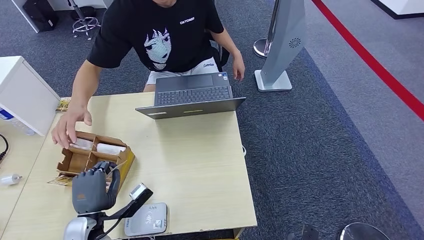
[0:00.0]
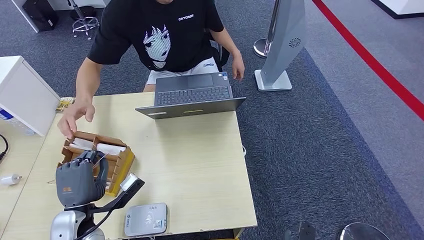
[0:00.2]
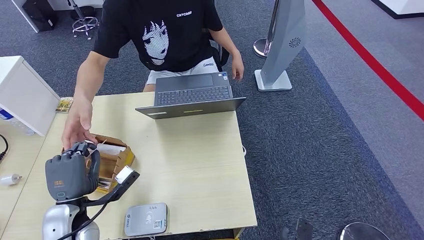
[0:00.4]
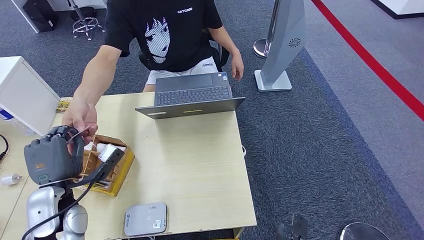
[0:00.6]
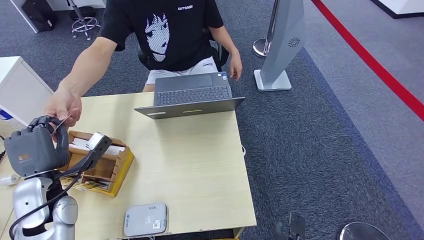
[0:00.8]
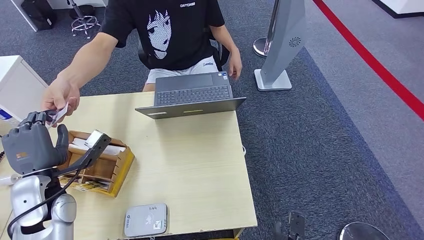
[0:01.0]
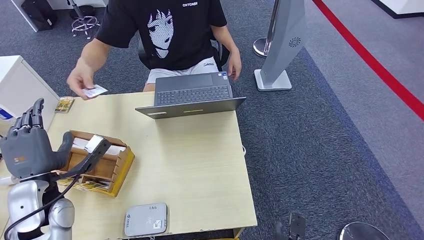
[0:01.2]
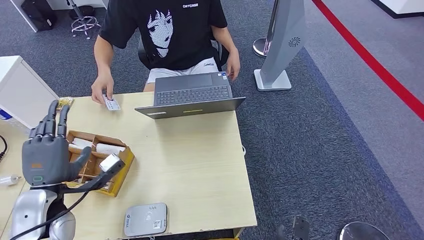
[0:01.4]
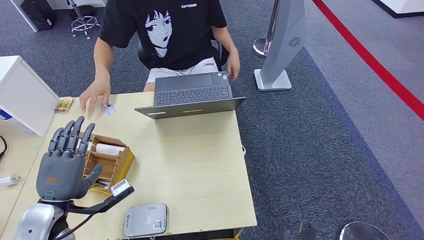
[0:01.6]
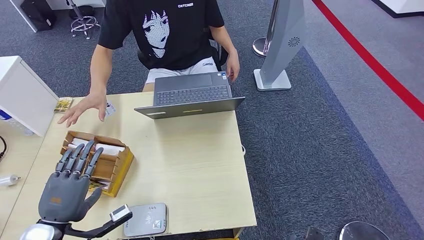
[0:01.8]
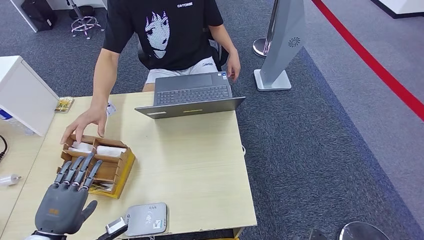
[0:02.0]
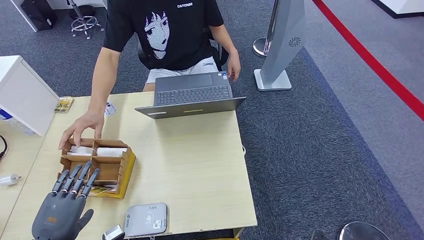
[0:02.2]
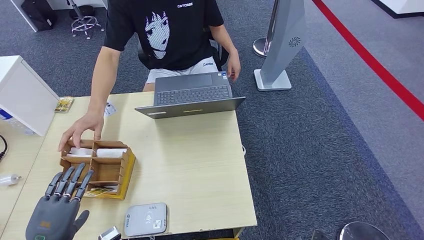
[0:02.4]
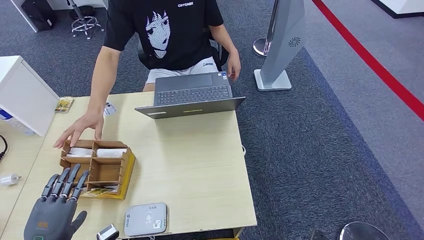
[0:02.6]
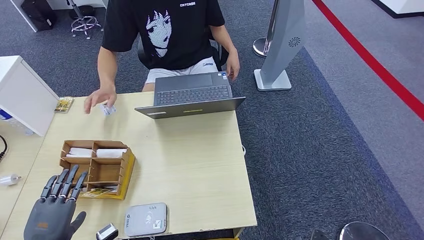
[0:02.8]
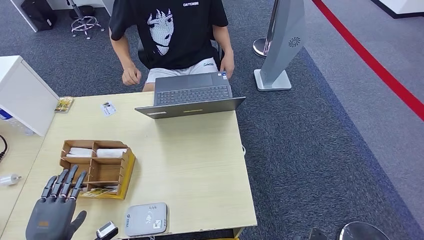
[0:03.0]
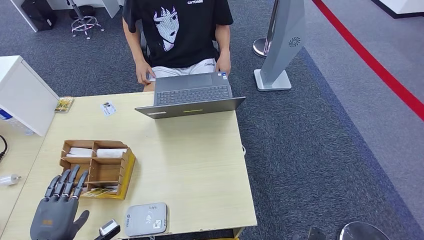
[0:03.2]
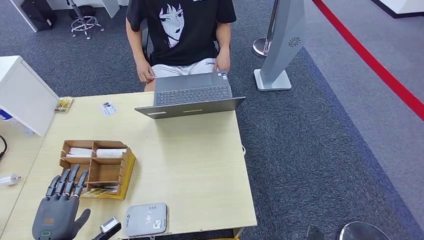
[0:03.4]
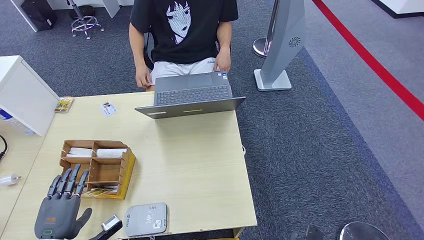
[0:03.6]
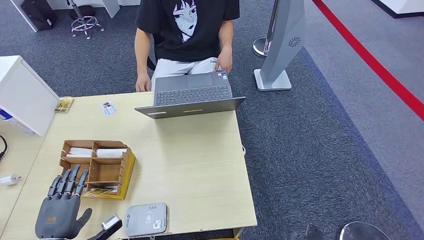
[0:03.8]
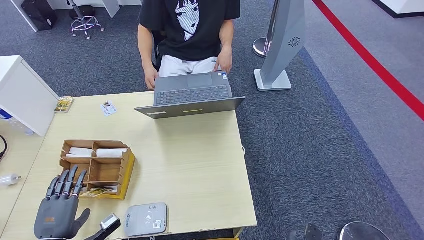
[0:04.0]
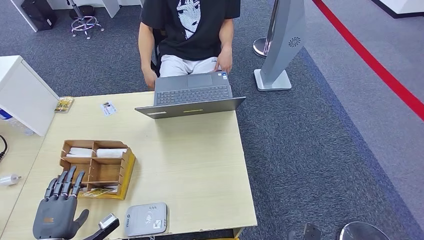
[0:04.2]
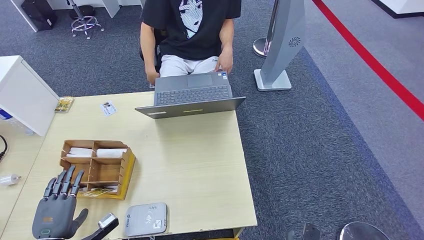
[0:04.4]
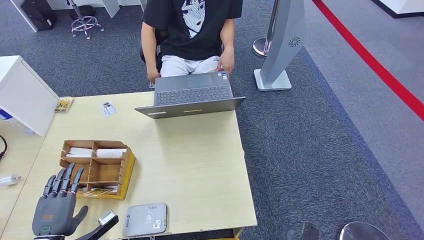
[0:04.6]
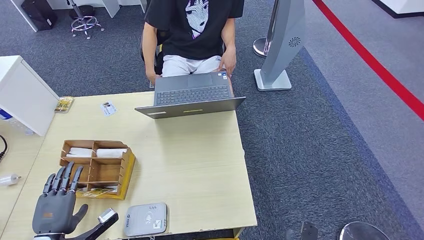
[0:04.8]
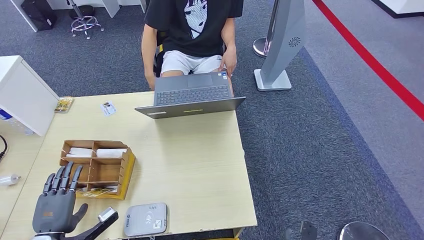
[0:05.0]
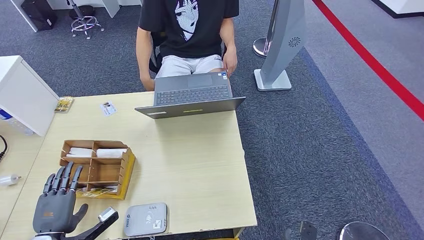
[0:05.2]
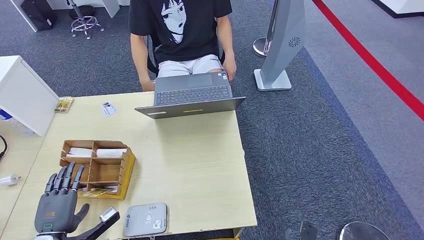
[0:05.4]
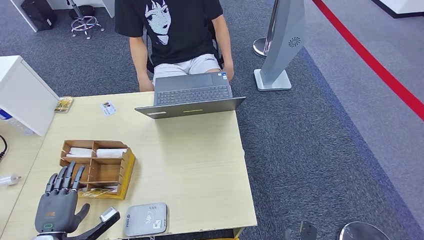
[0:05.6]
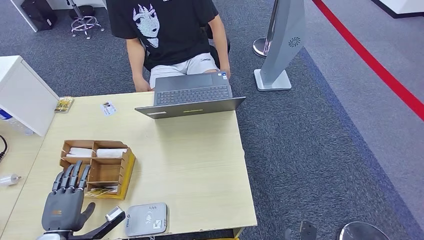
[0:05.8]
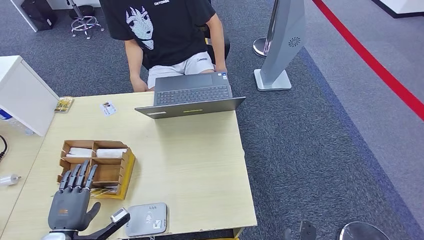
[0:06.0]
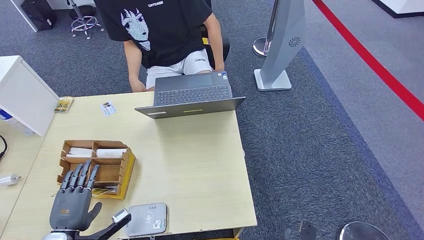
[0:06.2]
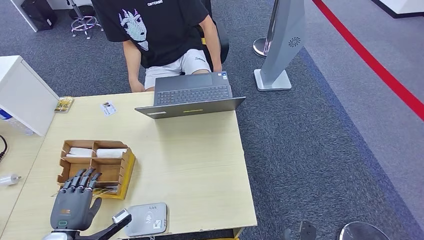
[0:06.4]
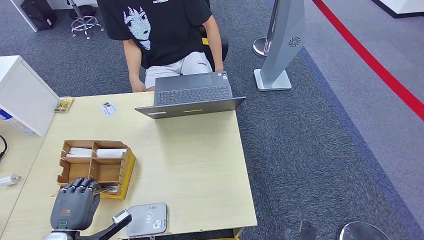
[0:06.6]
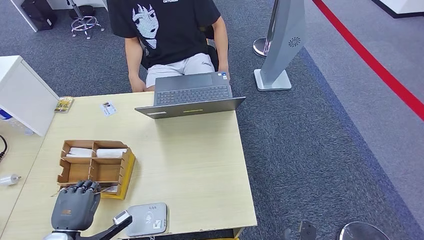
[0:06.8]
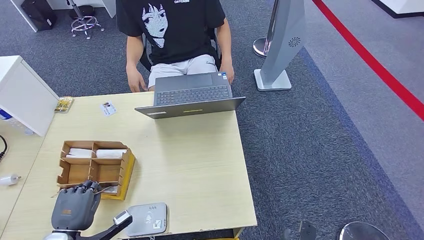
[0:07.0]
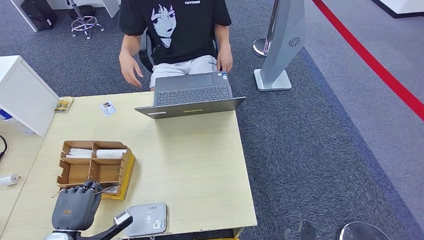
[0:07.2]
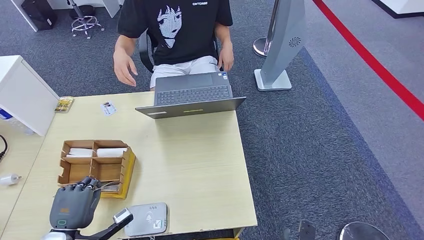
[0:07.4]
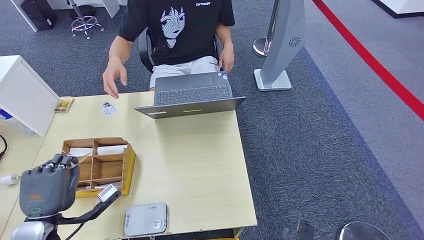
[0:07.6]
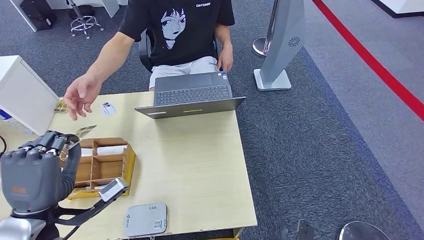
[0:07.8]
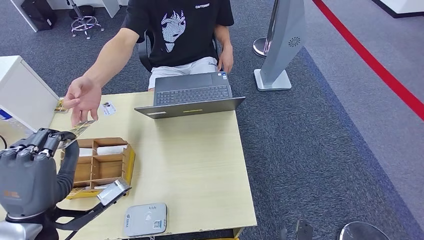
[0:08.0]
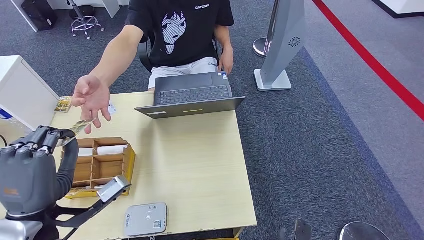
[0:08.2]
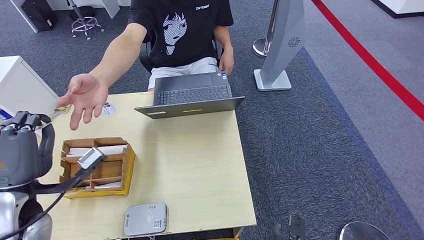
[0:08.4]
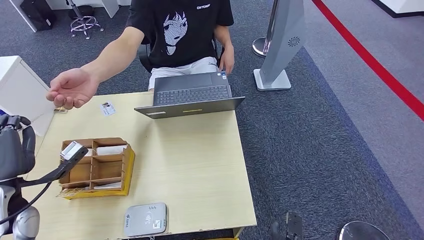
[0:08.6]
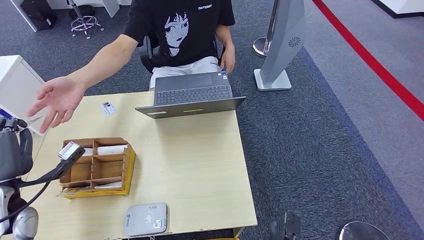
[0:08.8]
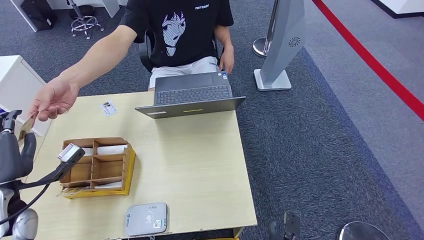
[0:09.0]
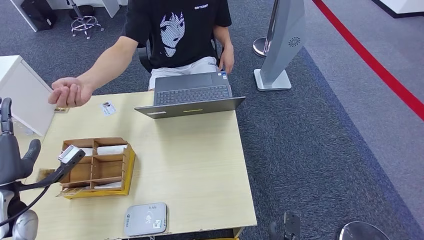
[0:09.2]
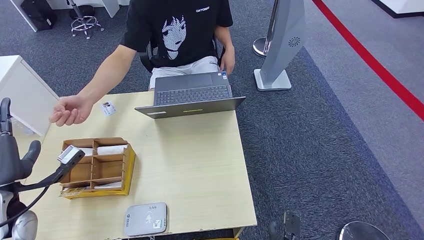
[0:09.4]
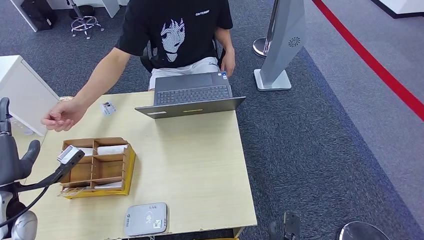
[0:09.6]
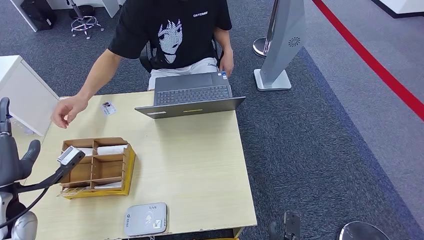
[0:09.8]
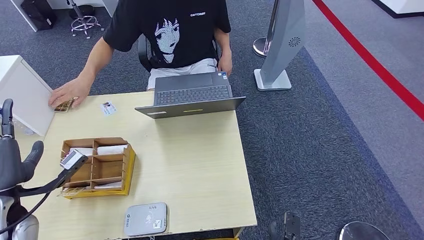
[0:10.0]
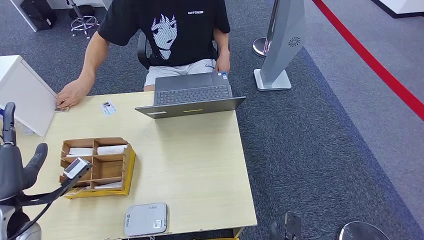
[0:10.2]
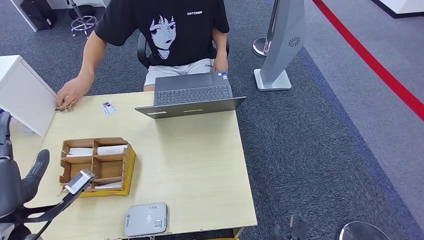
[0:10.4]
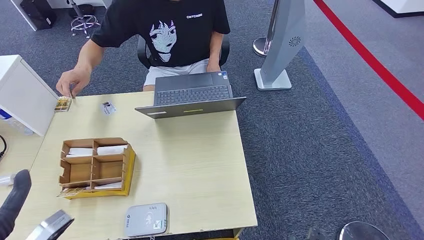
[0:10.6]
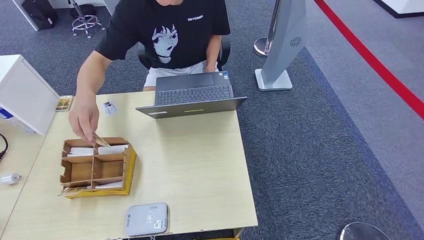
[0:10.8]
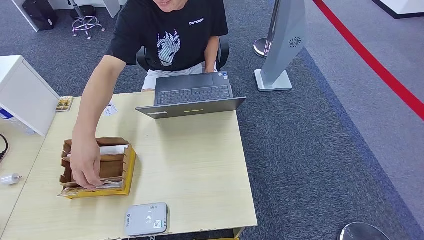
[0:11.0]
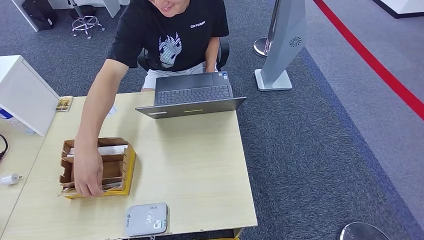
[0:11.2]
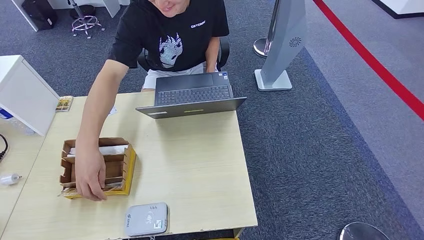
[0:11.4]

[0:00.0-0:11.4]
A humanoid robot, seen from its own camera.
Step, 0:00.0 to 0:02.4: Hand the ID card to the person.
Step, 0:02.6 to 0:08.0: Pick up the room key from the key card box.
0:00.0 to 0:01.4: The left hand travels upward and to the left by some 10 cm.
0:01.4 to 0:02.8: The left hand moves backward, downward and to the left, some 15 cm.
0:02.8 to 0:04.2: The hands make only small movements.
0:04.2 to 0:05.6: The two hands keep their place.
0:05.6 to 0:07.2: The hands make only small movements.
0:07.2 to 0:08.6: The left hand moves upward and forward, about 20 cm.
0:08.6 to 0:10.0: The hands move only a little.
0:10.0 to 0:11.4: The right hand heads backward and to the right, covering approximately 10 cm. Meanwhile the left hand goes about 25 cm backward and downward.

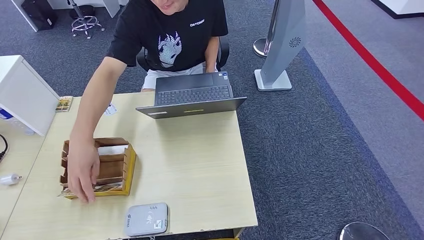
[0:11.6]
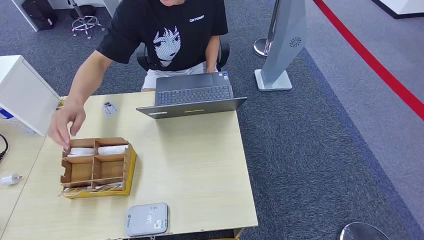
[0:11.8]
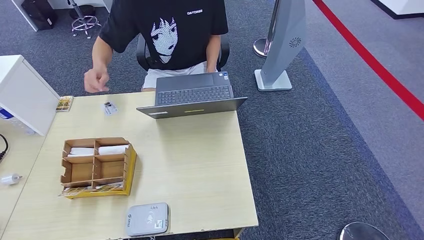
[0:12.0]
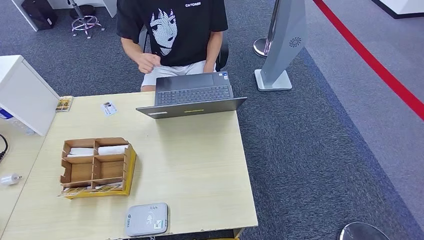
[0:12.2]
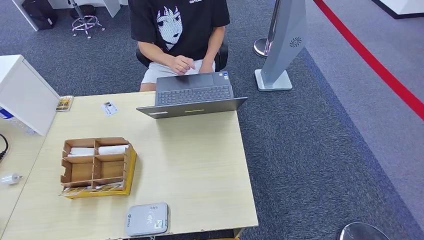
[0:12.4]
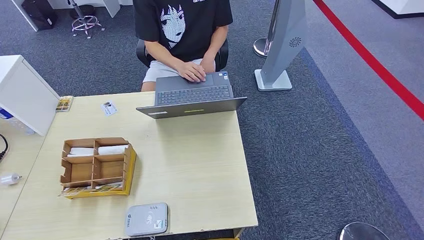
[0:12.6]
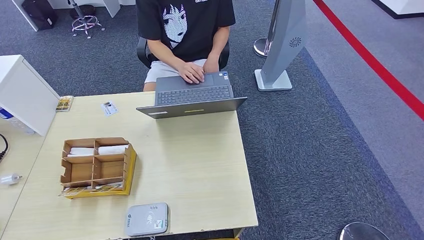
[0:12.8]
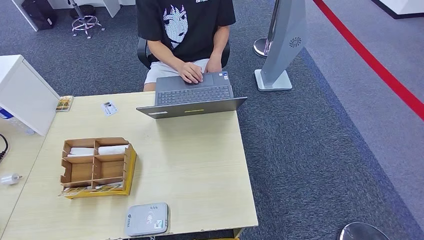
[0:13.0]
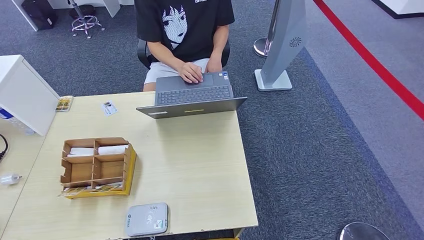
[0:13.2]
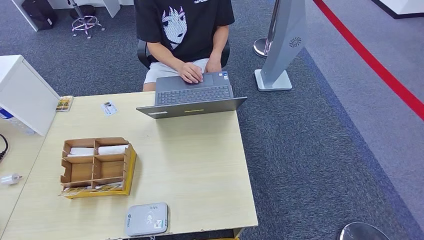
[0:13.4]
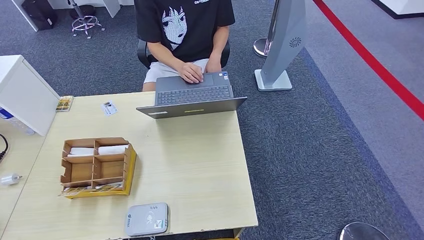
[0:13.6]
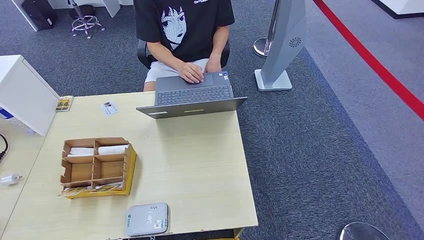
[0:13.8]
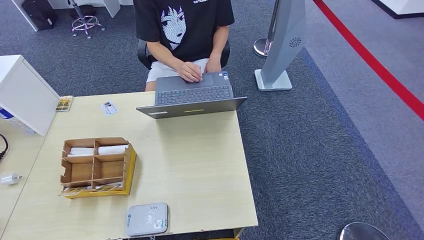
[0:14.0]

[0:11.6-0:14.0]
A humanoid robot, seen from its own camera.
Step, 0:11.6 to 0:14.0: Hand the room key to the person.
0:11.6 to 0:12.8: The left hand shifts roughly 15 cm to the right and downward.
